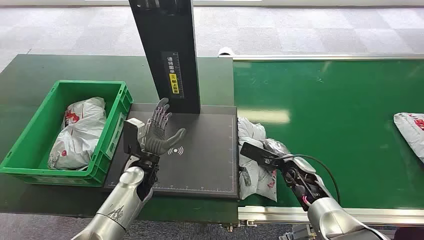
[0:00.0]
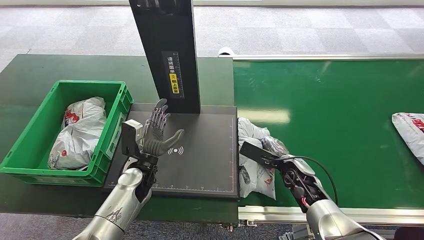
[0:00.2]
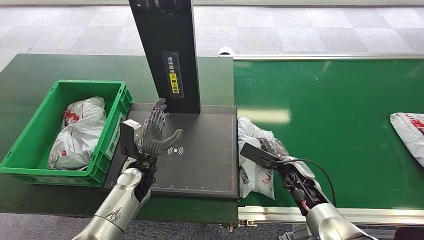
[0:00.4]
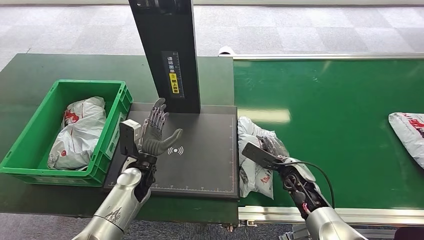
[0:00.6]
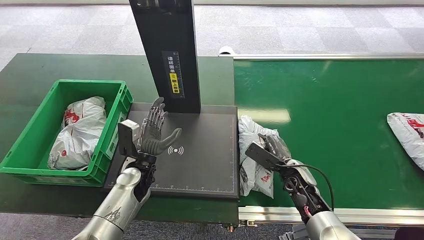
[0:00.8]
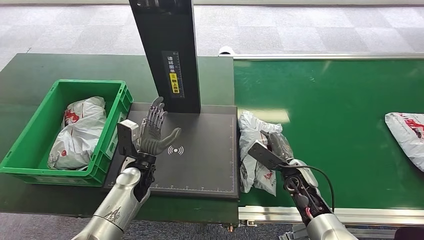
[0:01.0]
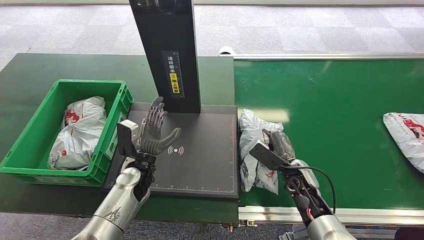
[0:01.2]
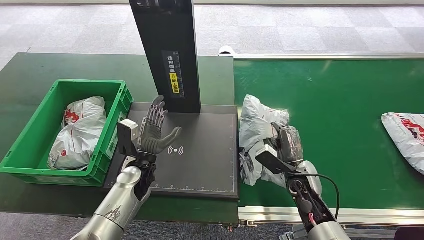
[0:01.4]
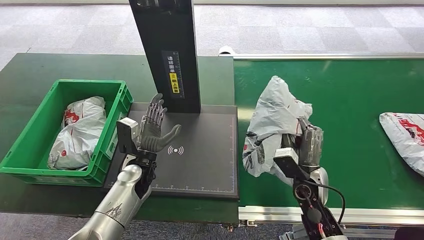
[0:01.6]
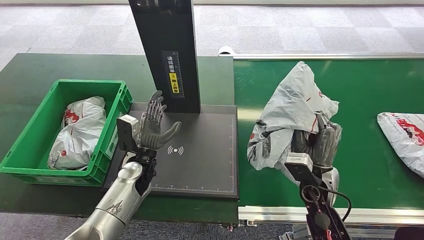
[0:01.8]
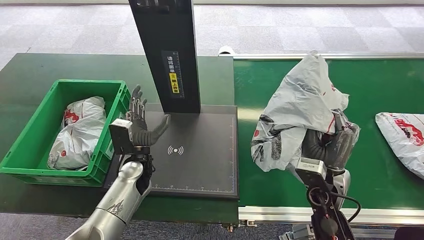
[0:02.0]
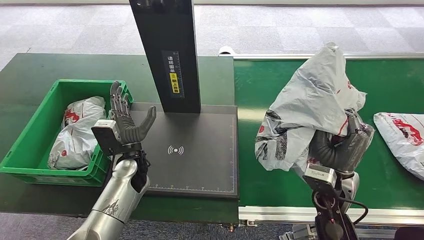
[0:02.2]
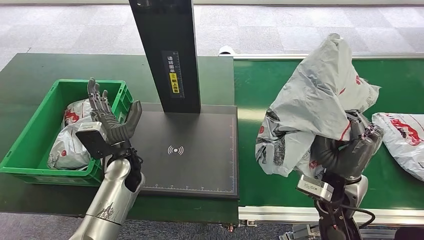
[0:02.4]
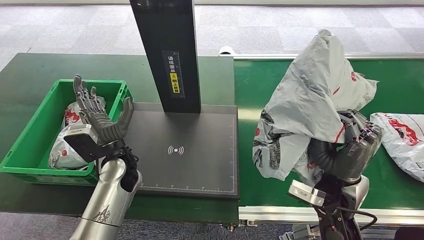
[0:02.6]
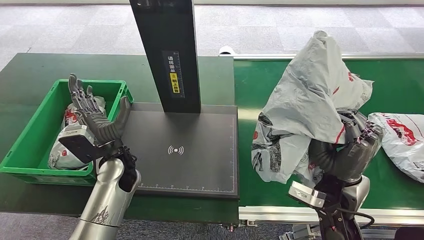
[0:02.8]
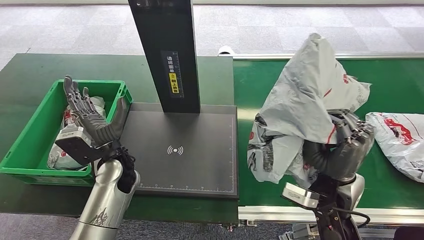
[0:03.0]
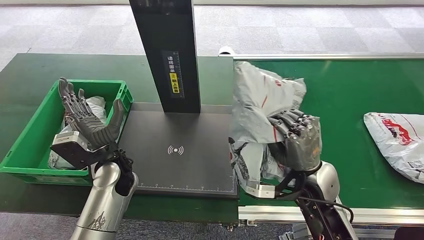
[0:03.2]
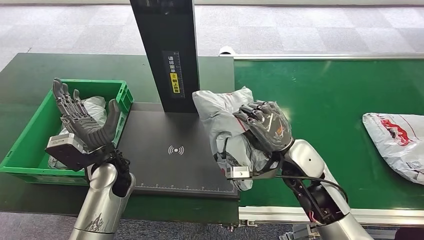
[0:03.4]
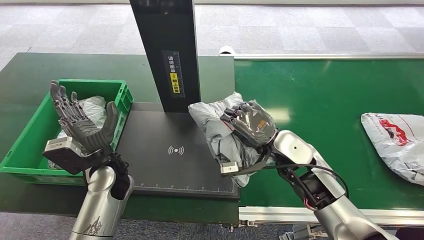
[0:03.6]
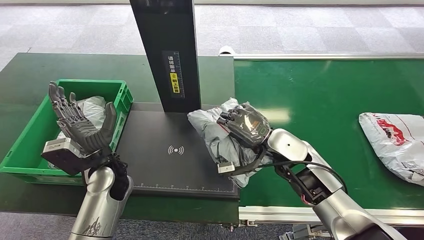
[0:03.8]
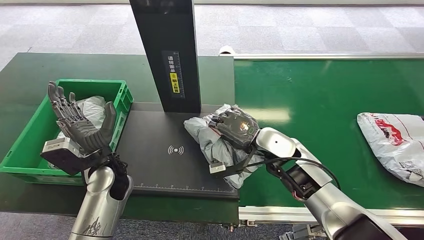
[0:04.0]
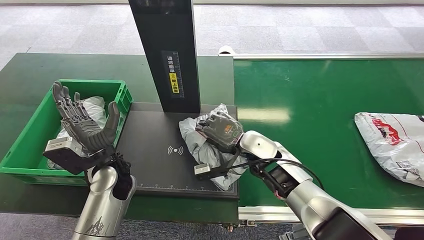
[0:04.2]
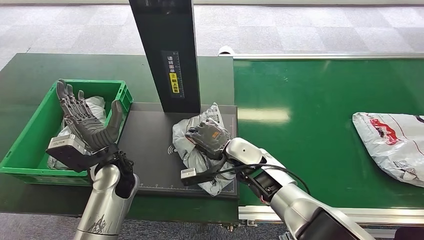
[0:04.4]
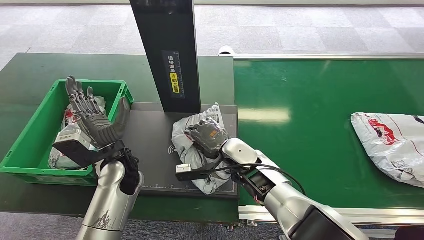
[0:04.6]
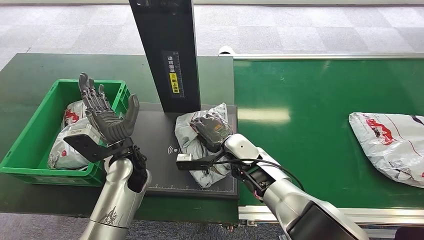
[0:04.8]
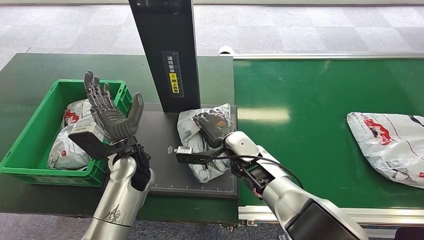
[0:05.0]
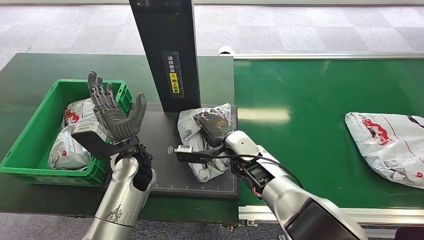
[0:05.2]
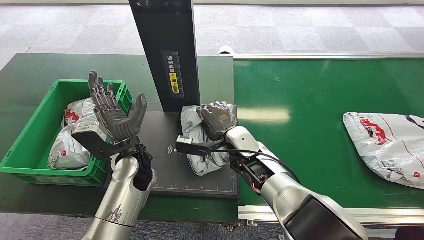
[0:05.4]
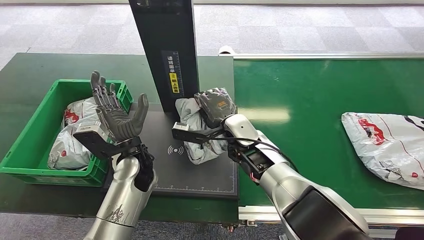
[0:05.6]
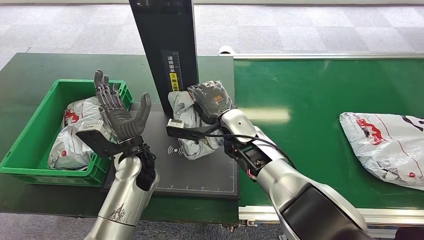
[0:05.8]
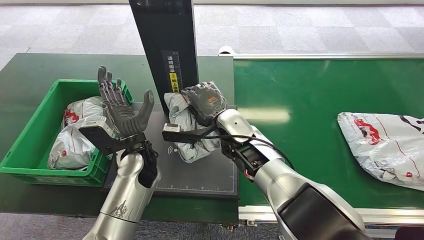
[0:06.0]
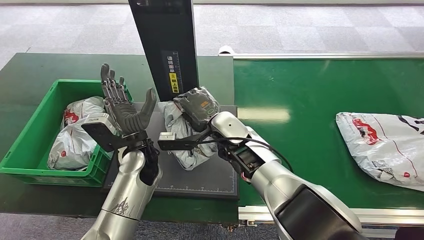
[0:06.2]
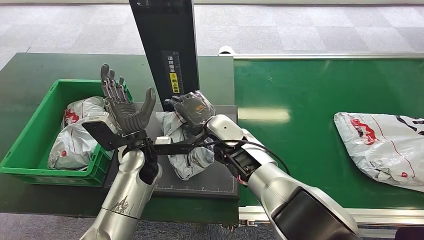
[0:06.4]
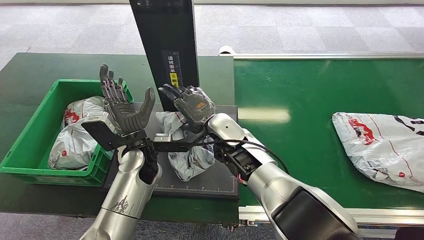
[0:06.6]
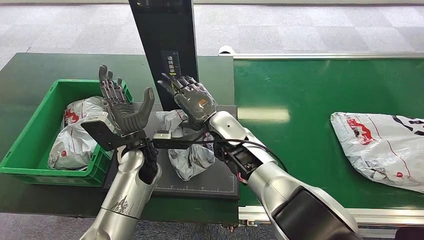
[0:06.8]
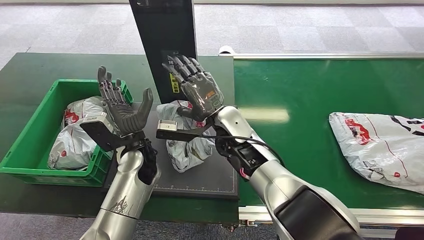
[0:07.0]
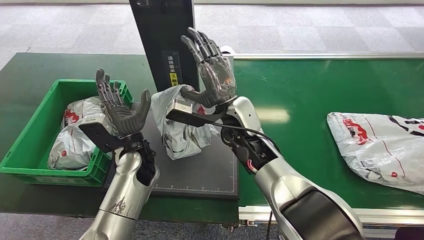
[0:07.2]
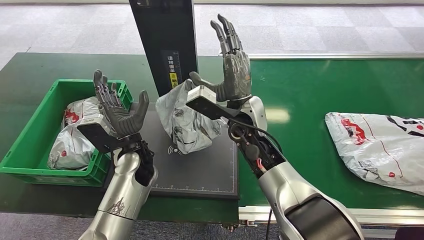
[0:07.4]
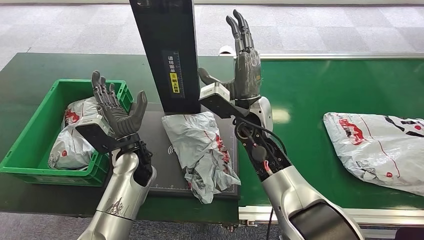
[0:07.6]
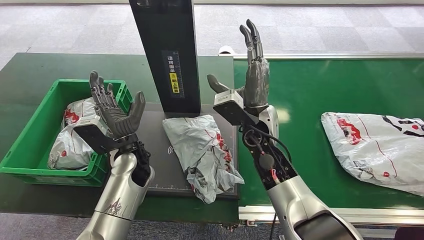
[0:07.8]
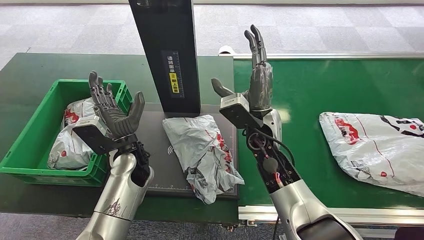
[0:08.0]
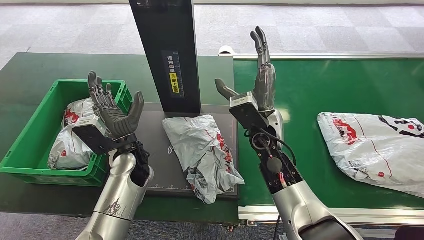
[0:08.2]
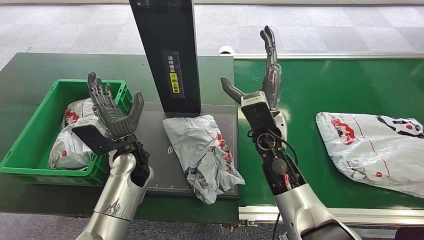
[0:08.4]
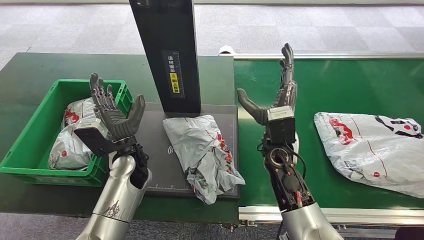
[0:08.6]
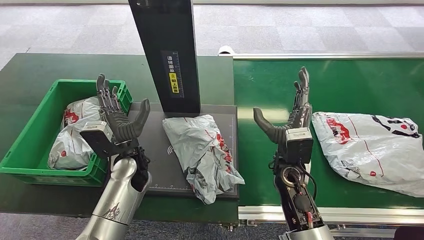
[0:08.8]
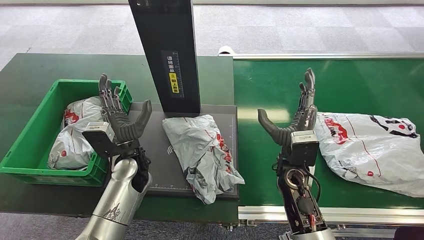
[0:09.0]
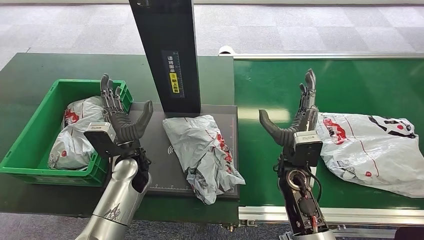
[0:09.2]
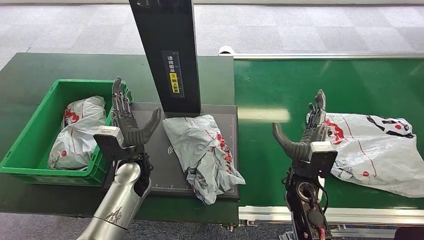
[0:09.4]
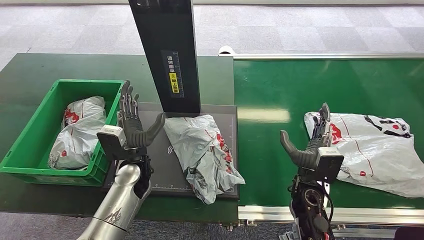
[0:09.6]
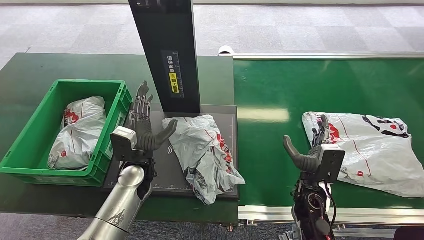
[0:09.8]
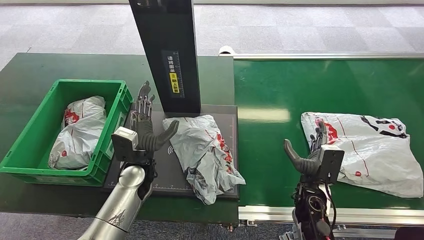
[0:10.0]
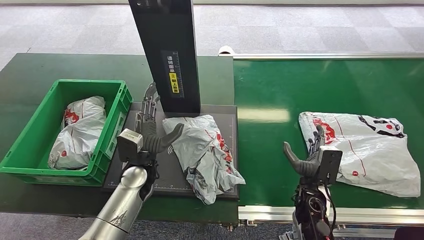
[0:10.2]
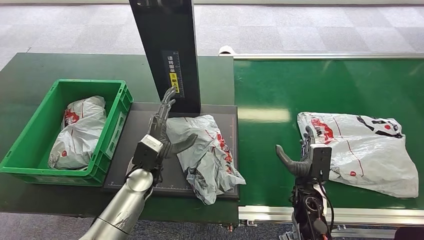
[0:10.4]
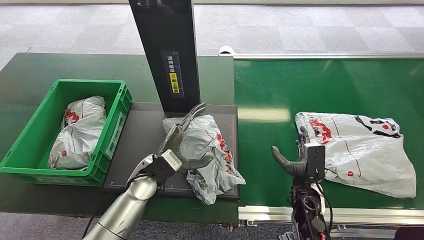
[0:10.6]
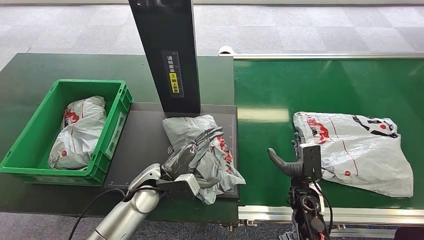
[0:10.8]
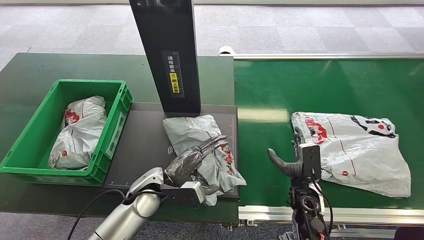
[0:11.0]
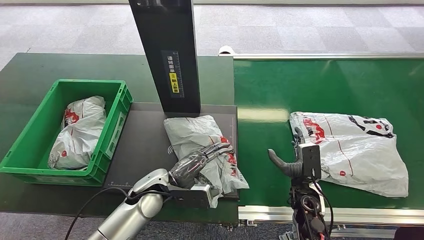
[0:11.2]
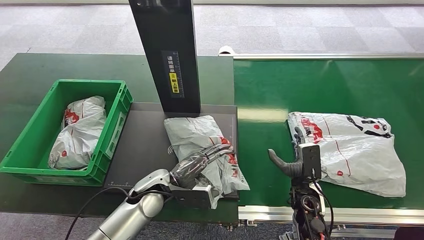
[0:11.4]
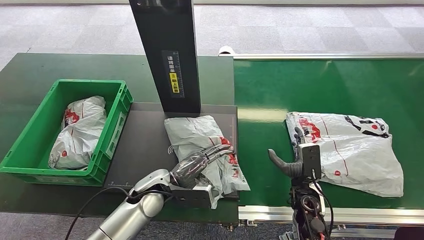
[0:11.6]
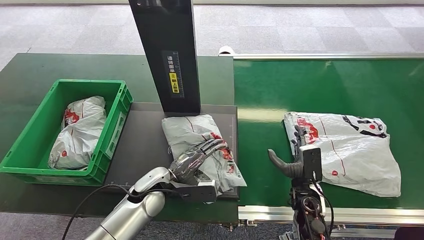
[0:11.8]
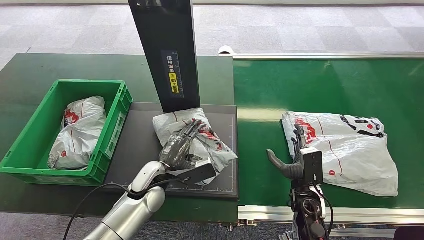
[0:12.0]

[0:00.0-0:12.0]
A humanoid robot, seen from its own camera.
Step, 0:00.0 to 0:02.0: Pick up the package from the conveyor belt.
Step, 0:02.2 to 0:08.4: Place the package onto the inbound machine.
0:09.0 to 0:10.4: The right hand moves downward and to the right, some 15 cm.

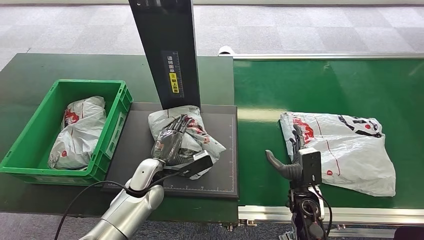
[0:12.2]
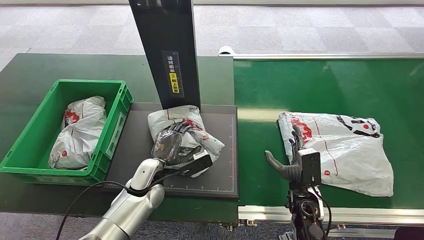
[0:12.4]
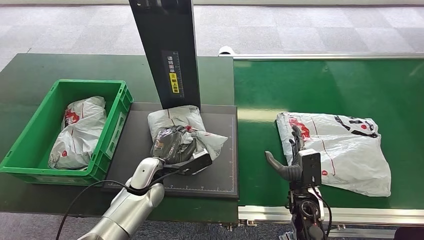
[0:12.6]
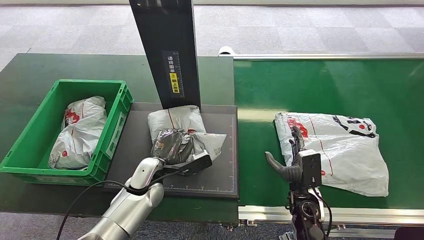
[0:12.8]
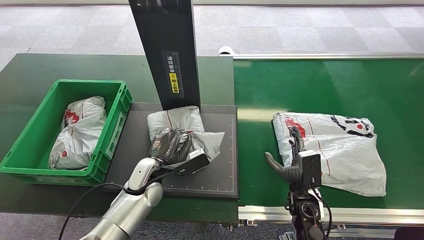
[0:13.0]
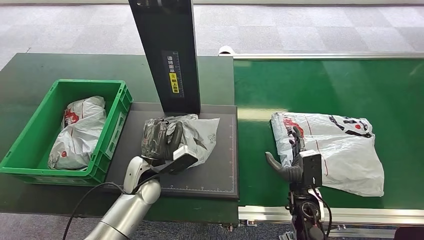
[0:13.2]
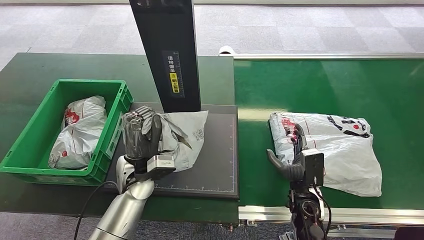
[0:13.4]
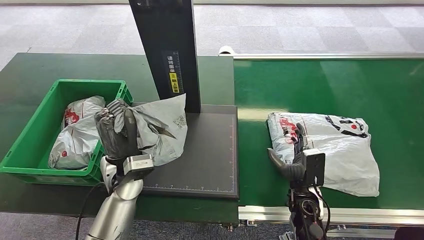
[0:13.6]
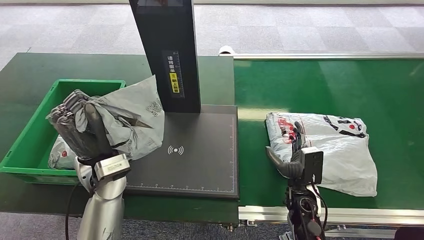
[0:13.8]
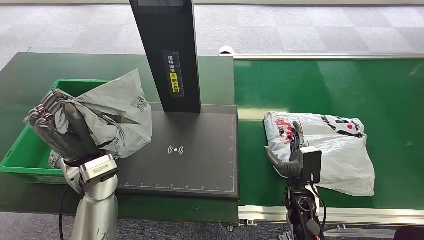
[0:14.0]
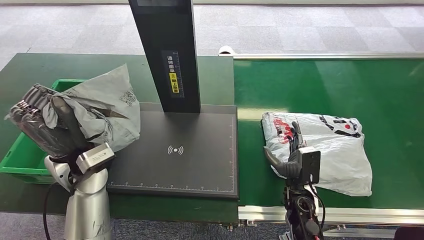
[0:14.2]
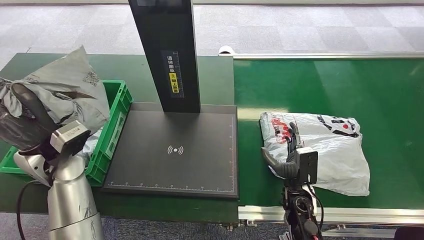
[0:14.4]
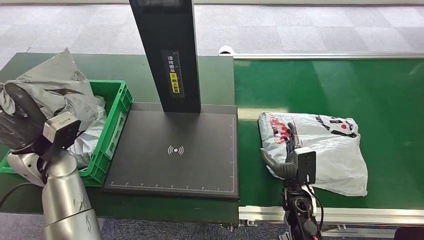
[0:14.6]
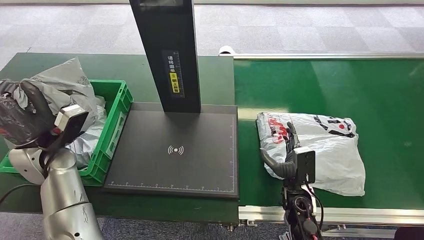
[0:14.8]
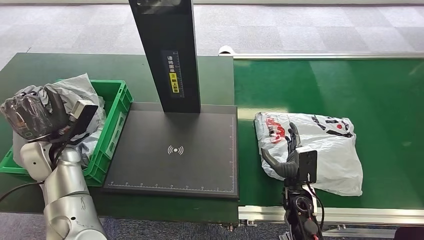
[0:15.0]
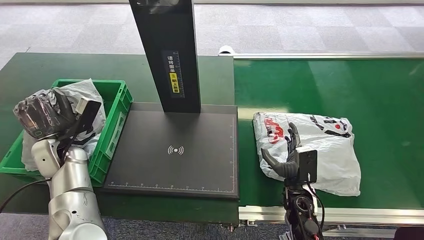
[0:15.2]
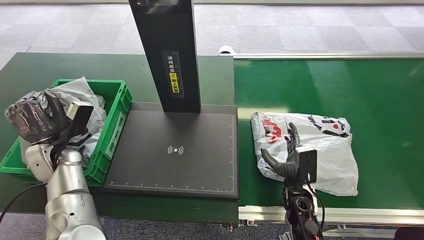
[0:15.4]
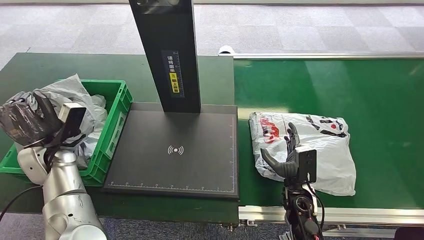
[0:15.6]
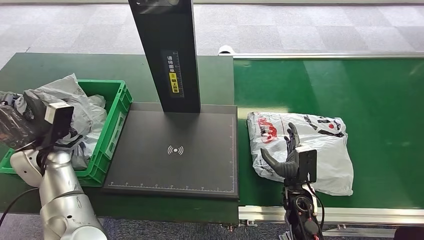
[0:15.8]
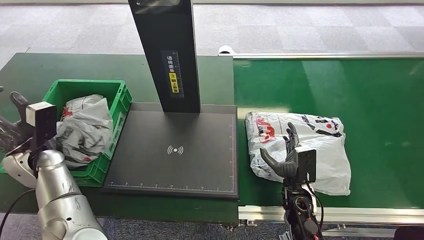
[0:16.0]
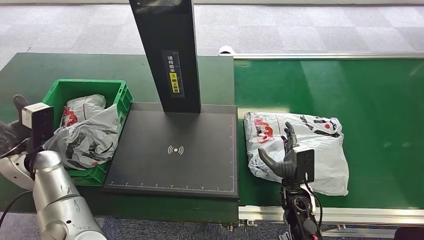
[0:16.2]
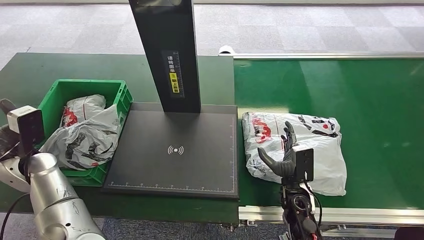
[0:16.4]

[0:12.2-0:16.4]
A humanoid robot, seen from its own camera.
Step, 0:13.8 to 0:16.4: Place the package into the parcel locker.
0:12.2 to 0:13.6: The left hand goes about 10 cm upward.

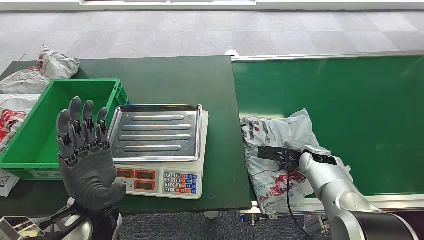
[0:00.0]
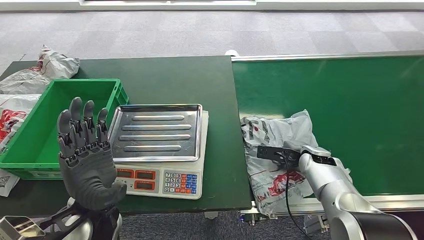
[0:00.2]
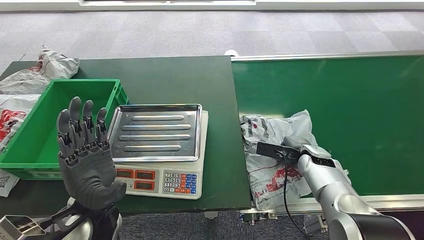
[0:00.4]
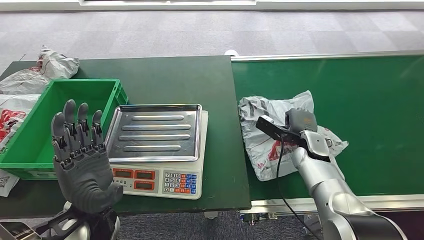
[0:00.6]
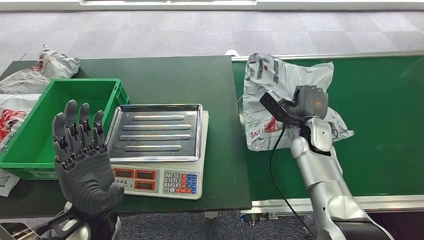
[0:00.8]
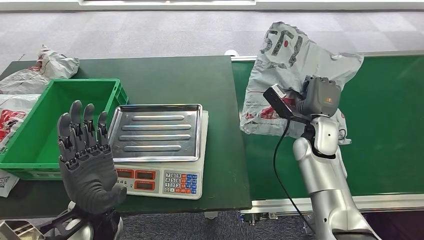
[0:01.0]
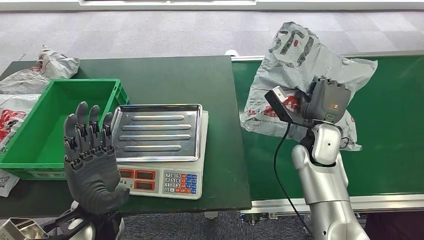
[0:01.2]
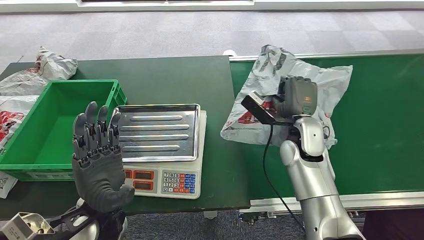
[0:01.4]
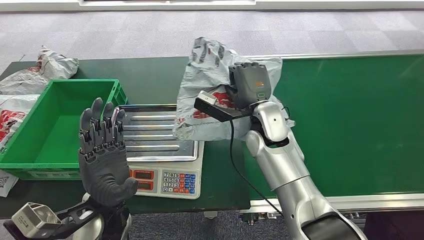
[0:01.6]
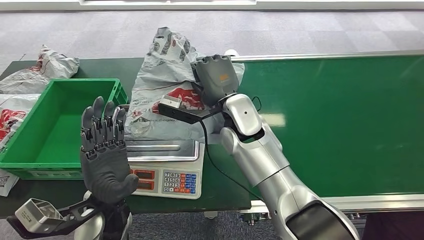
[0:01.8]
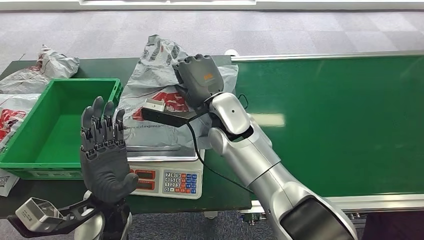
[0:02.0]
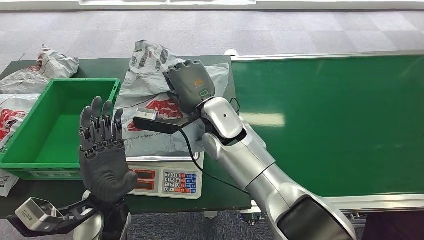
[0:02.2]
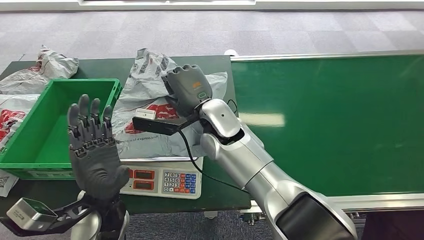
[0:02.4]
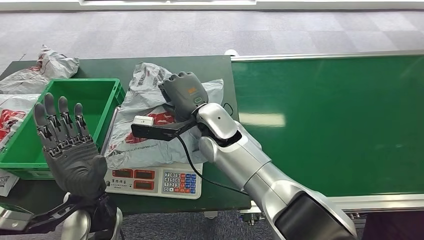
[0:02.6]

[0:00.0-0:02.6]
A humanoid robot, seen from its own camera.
Step, 0:00.0 to 0:01.6: Pick up the package from the conveyor belt.
